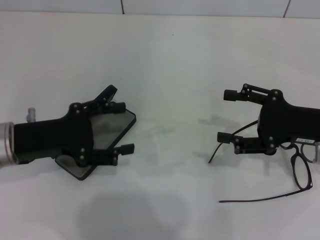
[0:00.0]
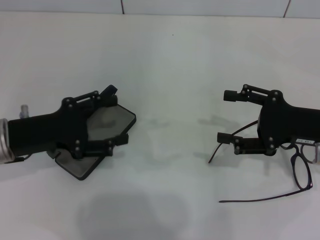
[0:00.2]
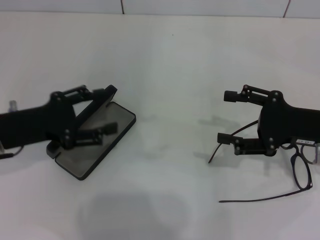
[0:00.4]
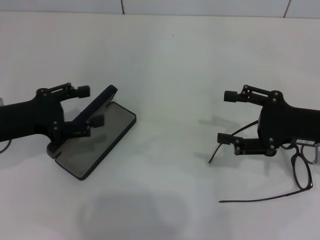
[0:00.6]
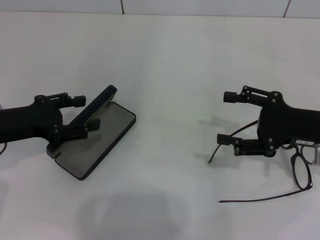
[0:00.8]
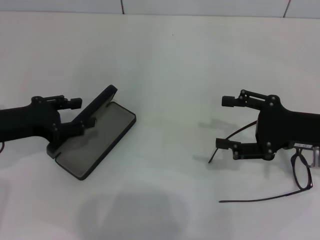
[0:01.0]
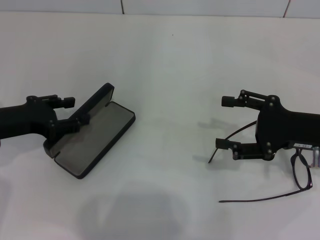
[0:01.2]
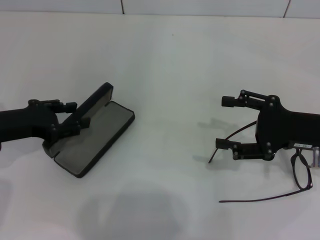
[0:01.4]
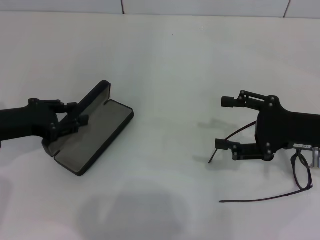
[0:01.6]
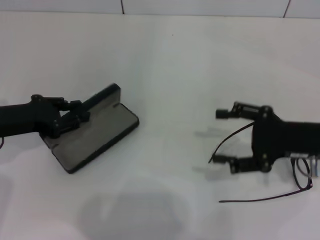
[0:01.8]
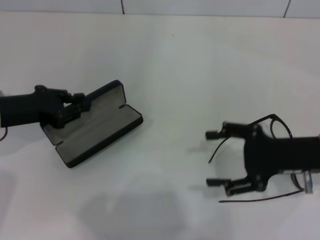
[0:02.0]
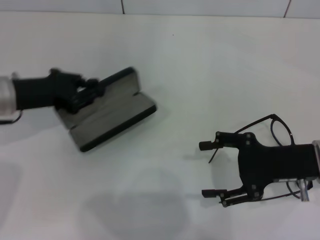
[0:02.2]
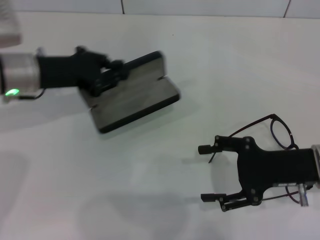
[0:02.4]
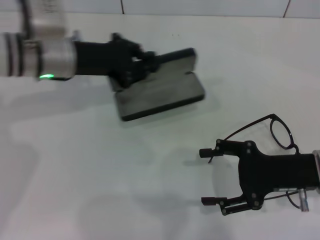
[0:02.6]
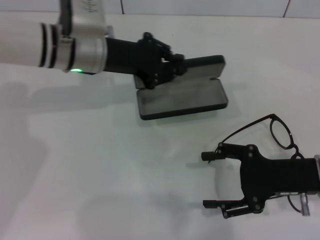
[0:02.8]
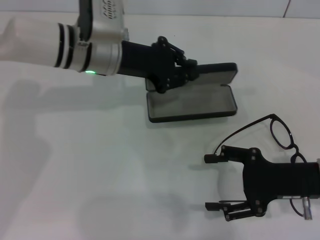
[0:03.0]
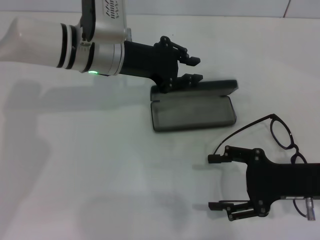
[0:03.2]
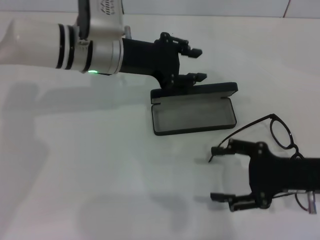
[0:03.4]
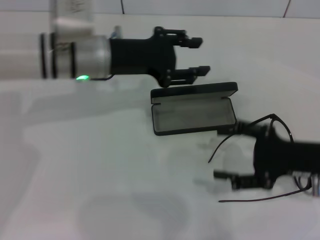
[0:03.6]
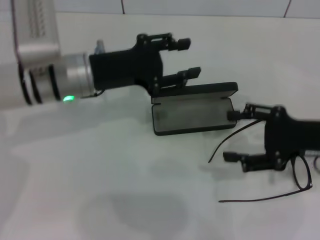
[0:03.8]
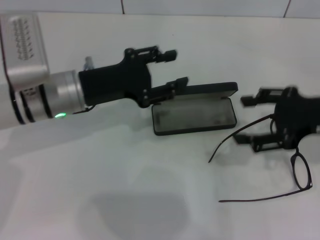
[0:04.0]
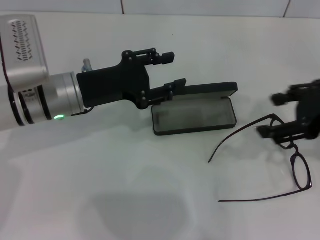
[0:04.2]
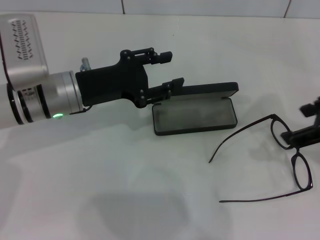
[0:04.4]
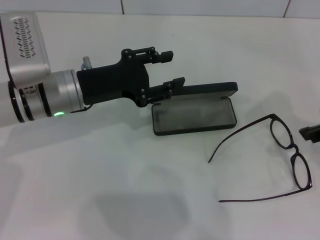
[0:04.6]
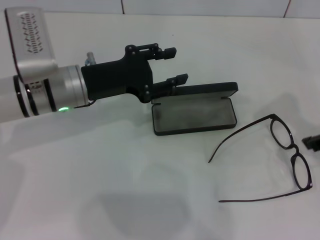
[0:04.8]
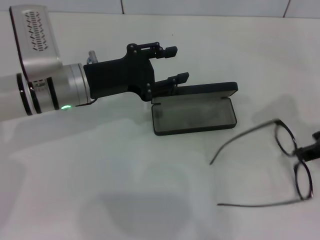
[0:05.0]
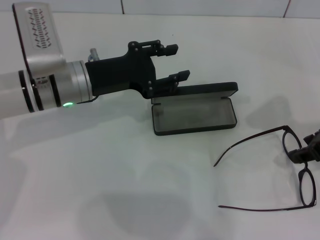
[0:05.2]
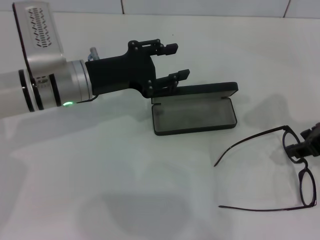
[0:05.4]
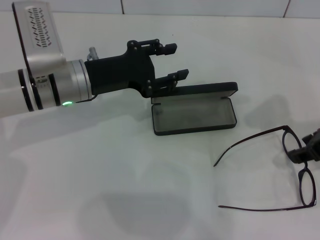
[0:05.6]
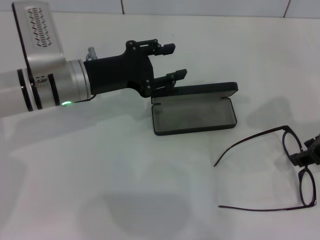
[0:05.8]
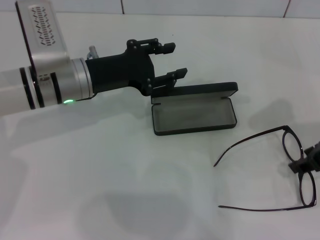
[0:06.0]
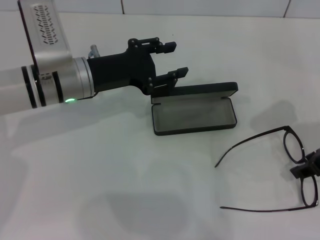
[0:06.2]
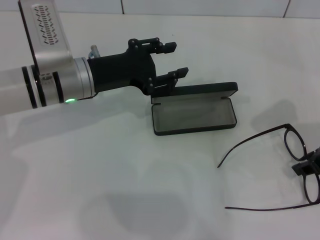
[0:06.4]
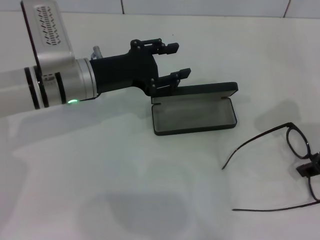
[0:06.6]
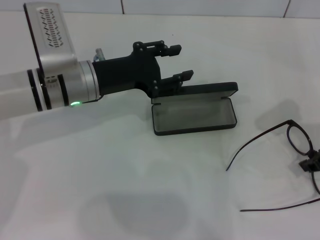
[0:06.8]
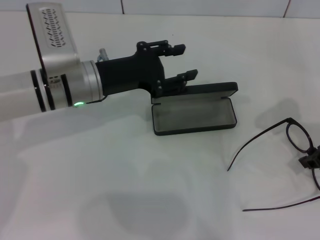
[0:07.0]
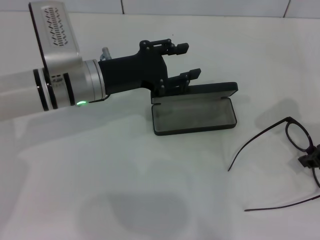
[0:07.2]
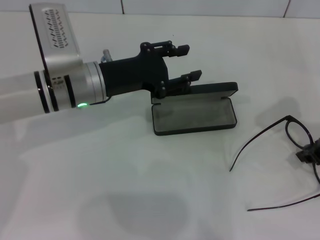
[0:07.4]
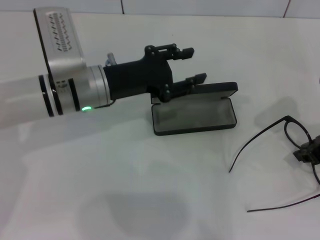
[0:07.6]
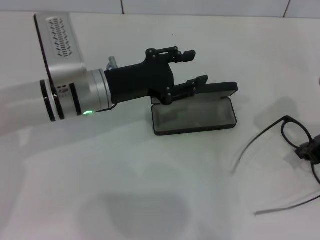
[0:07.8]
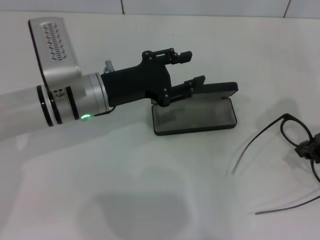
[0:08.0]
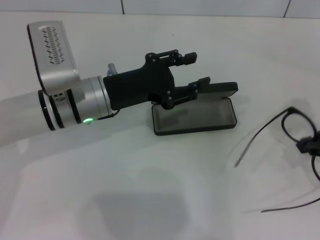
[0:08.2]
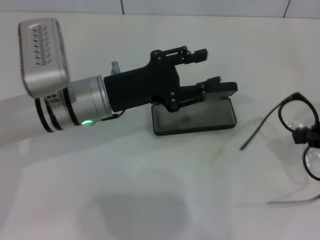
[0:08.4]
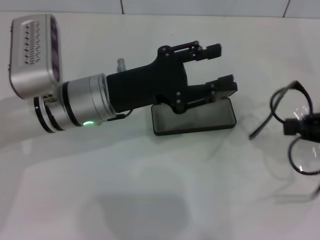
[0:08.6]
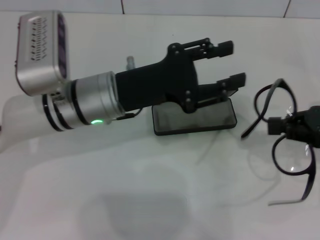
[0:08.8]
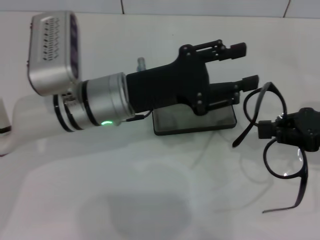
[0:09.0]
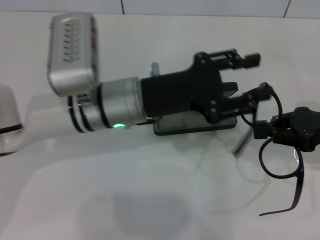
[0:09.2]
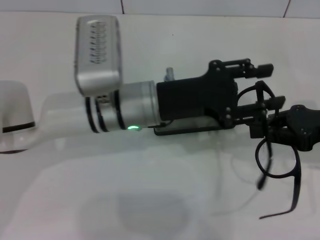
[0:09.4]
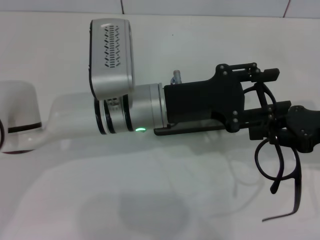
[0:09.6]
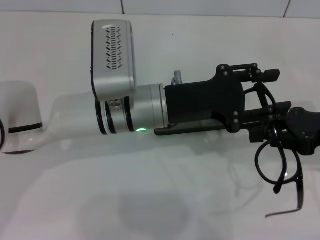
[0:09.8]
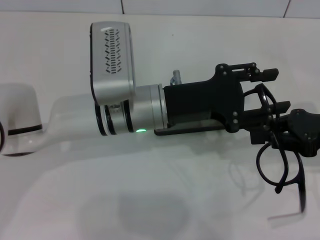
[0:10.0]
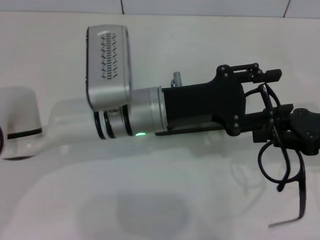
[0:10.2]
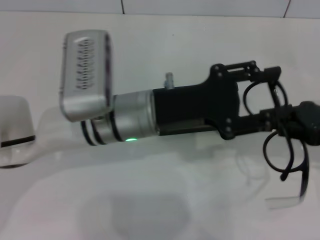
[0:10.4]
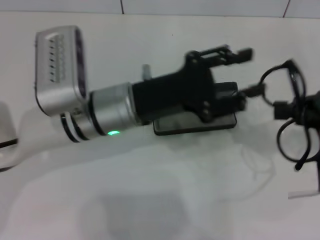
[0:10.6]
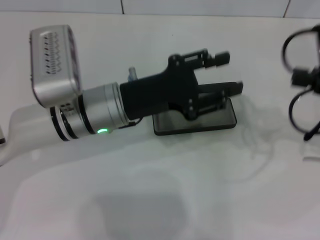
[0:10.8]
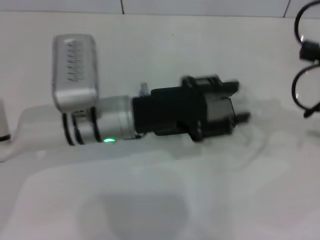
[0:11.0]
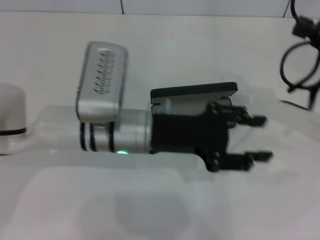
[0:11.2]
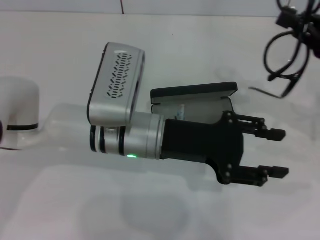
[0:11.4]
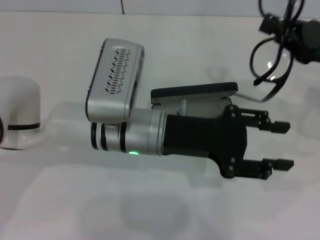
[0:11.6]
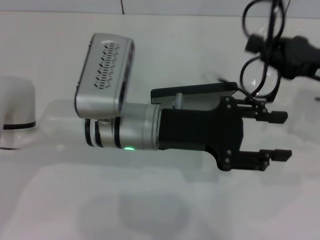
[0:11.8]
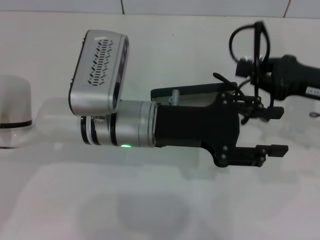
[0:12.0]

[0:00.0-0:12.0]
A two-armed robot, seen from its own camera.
Step, 0:00.0 to 0:01.4: Grab the glasses case with your left hand.
Step, 0:01.6 to 0:03.2: Place the glasses case in the center of the table with your left hand.
Step, 0:03.4 to 0:07.6: Grab the eyeglass frame with your right hand.
0:00.0 to 0:01.6: The left gripper closes its fingers.
0:01.6 to 0:03.0: The left gripper is displaced to the right and forward by some 20 cm, and closes its fingers. Meanwhile the right gripper changes place by about 5 cm.
0:03.0 to 0:04.4: The right gripper is displaced upward by about 15 cm. Meanwhile the left gripper moves backward and to the left, approximately 10 cm, and opens its fingers.
0:04.4 to 0:06.0: The right gripper is displaced downward by approximately 5 cm, and closes up.
0:06.0 to 0:07.6: The right gripper closes.
0:07.6 to 0:09.0: The left gripper moves about 5 cm.

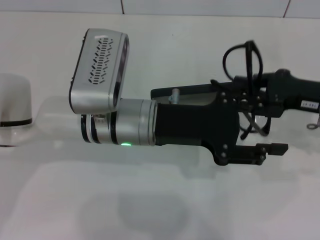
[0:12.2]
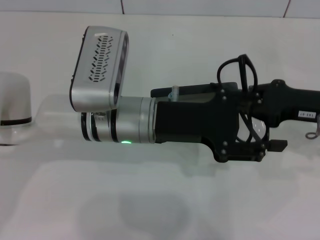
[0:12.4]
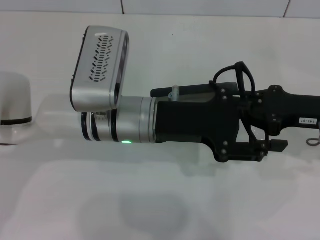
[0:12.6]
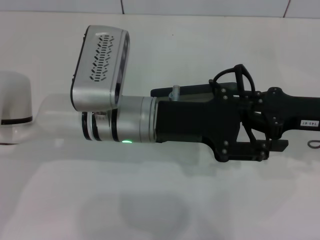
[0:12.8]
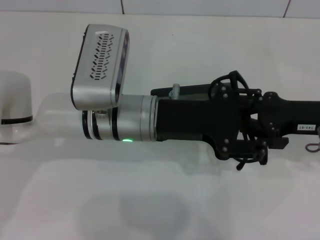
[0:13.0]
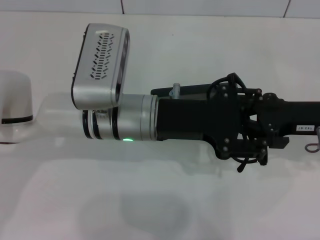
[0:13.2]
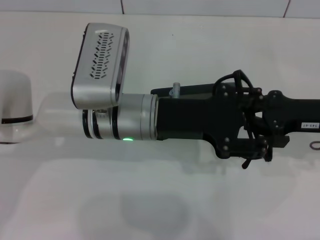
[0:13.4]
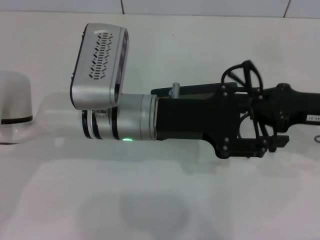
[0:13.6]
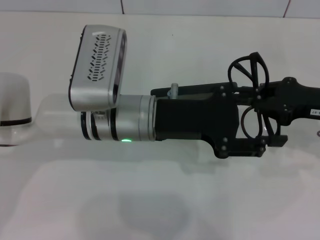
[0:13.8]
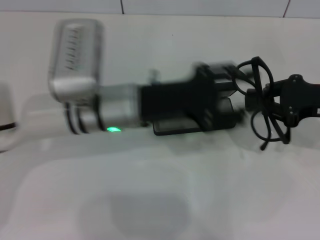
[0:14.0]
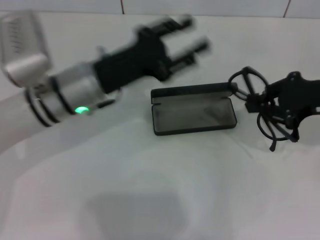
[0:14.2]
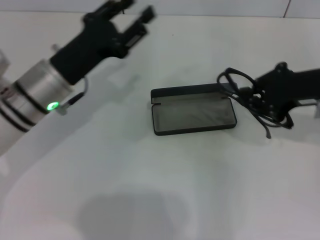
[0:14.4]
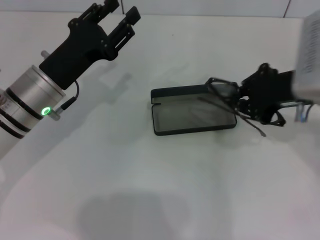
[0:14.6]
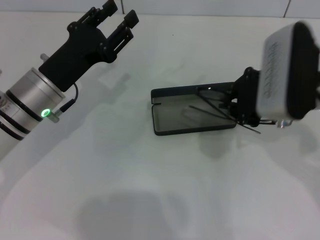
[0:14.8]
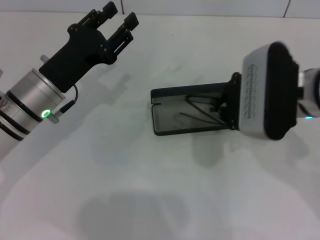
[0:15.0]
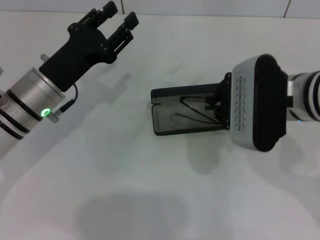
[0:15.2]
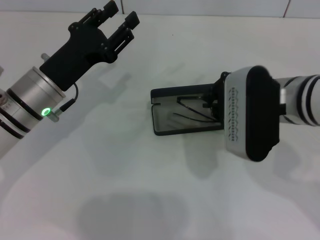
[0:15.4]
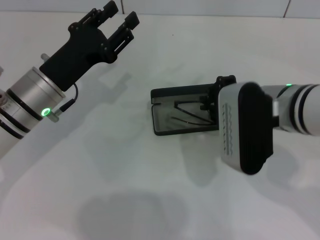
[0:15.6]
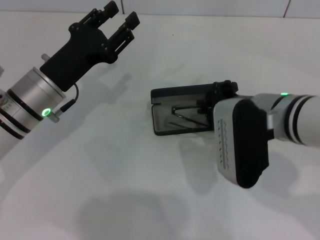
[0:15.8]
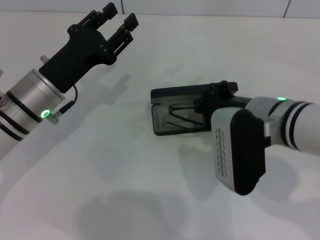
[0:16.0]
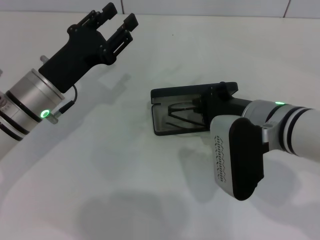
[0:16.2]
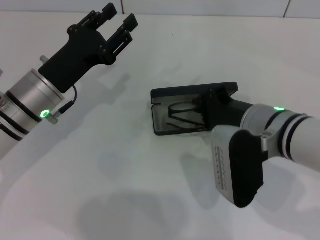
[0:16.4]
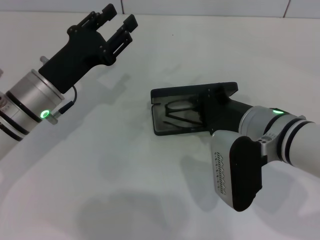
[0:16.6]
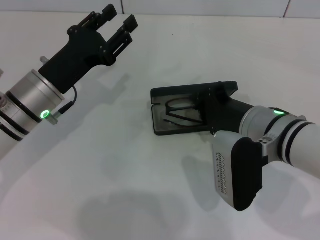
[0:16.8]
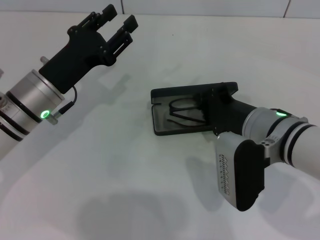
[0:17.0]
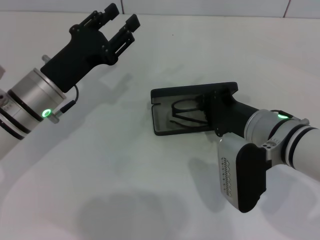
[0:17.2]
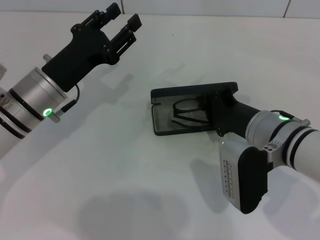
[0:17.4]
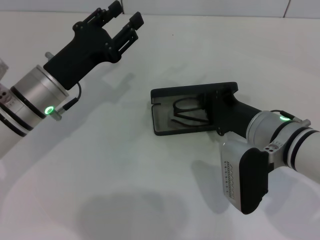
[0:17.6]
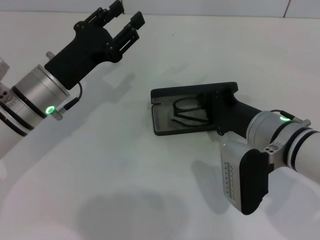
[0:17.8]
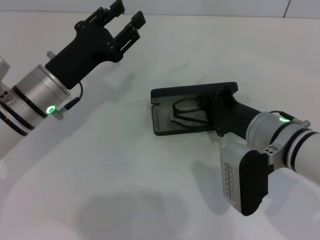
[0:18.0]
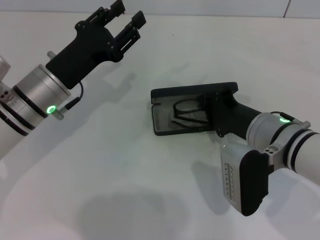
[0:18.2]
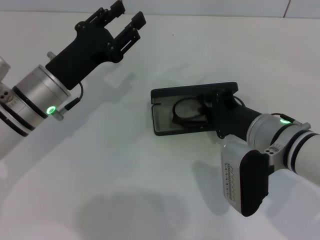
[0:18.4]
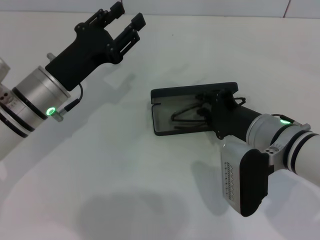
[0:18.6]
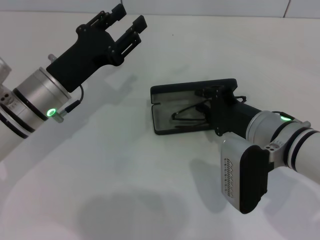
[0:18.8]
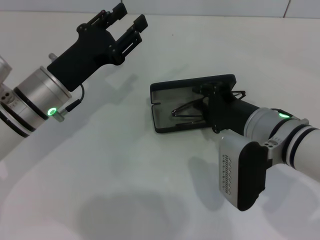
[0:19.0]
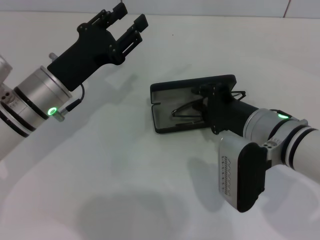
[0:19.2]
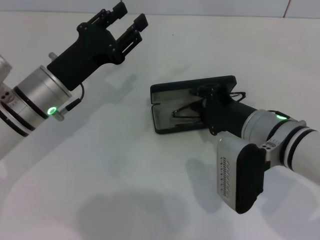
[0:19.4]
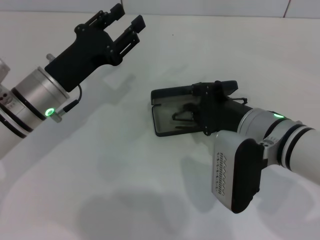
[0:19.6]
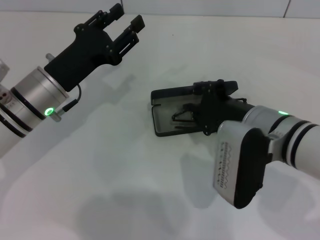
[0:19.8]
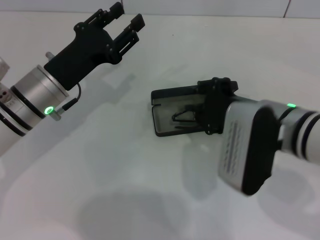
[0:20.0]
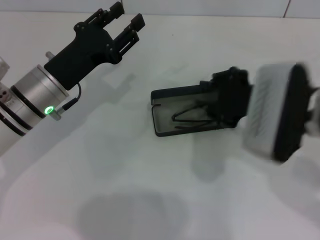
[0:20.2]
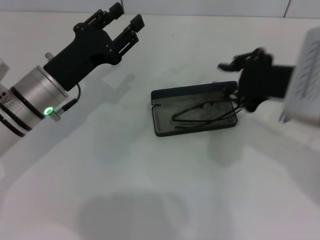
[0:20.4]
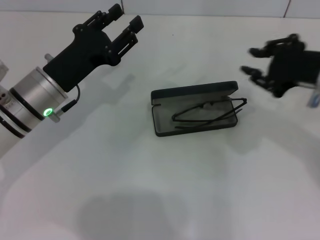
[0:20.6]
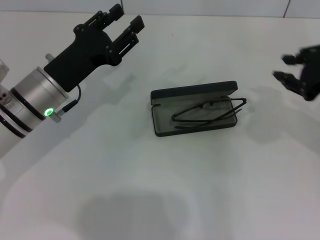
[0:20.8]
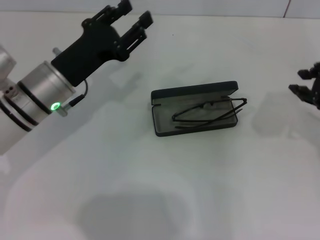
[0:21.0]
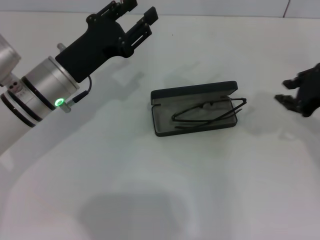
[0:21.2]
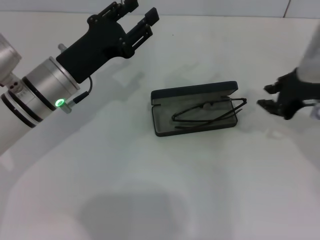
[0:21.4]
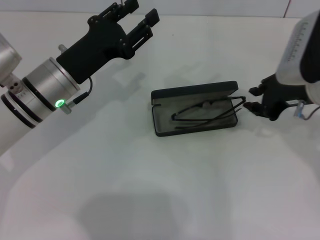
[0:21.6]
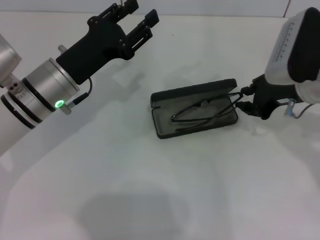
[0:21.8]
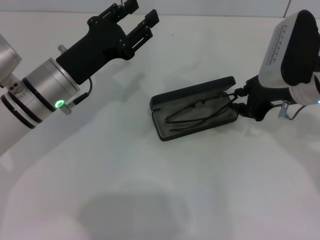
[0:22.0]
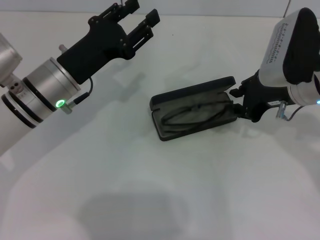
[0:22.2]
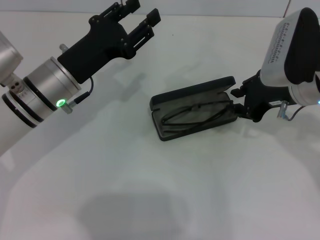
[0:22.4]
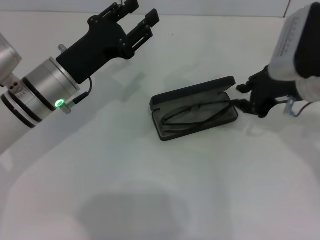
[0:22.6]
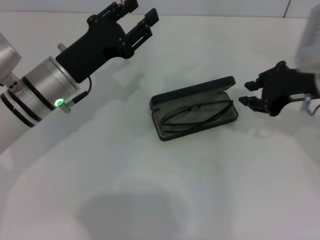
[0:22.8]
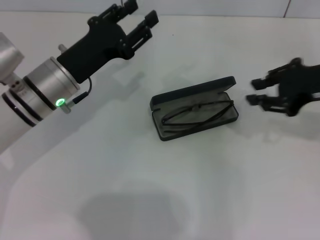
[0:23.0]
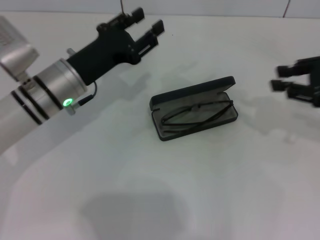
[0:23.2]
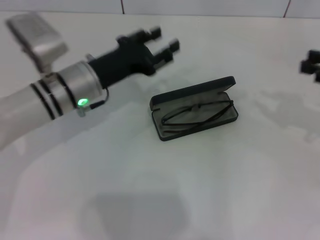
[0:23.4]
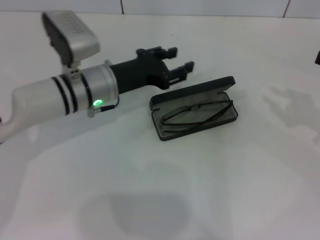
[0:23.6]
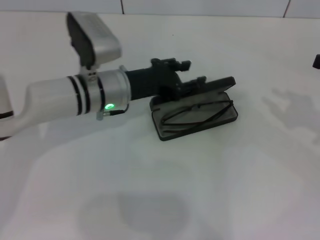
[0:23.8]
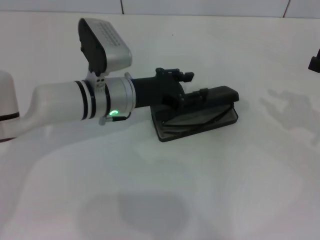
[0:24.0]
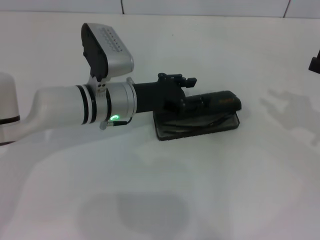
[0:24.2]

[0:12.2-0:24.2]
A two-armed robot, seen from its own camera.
Step, 0:13.8 to 0:22.6: Put the glasses into the case with your right hand.
0:12.2 to 0:13.8: The grippers make only small movements.
0:13.8 to 0:15.2: The grippers both shift to the left by approximately 15 cm.
0:15.2 to 0:16.6: The right gripper moves downward, some 5 cm.
0:16.6 to 0:19.8: The grippers move only a little.
0:19.8 to 0:21.2: The right gripper moves to the right and upward, some 15 cm.
0:21.2 to 0:22.6: The right gripper travels to the left by about 5 cm.
0:22.6 to 0:24.2: The right gripper shifts roughly 15 cm to the right; the left gripper shifts approximately 5 cm to the right.
